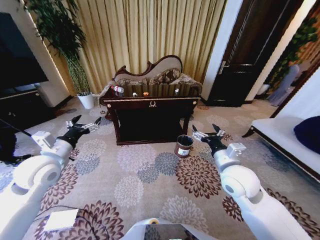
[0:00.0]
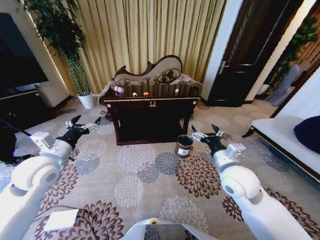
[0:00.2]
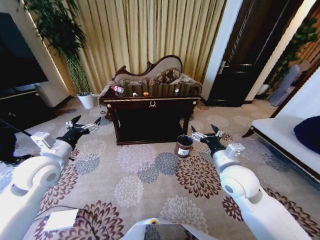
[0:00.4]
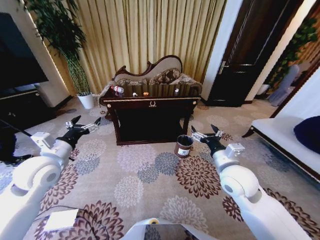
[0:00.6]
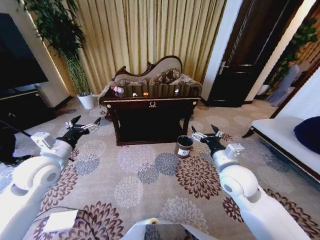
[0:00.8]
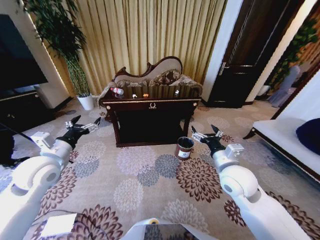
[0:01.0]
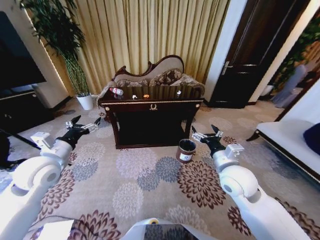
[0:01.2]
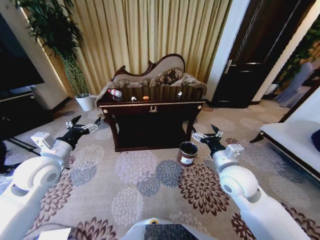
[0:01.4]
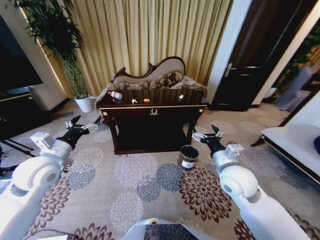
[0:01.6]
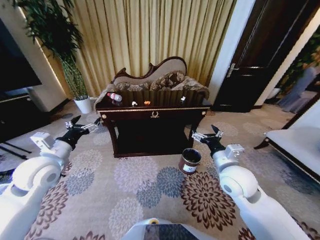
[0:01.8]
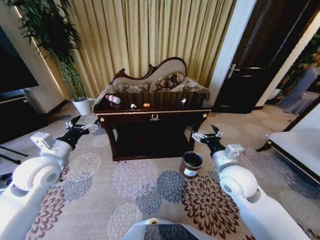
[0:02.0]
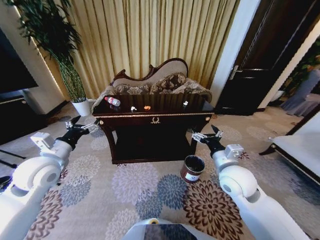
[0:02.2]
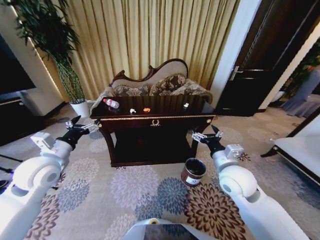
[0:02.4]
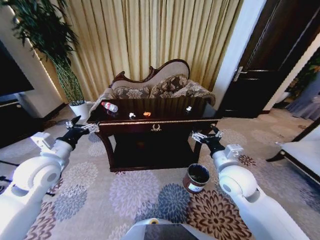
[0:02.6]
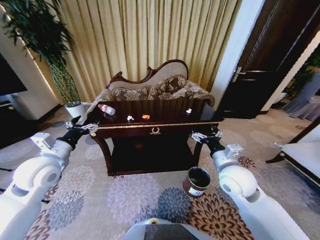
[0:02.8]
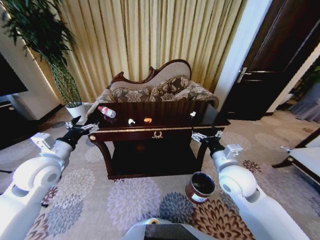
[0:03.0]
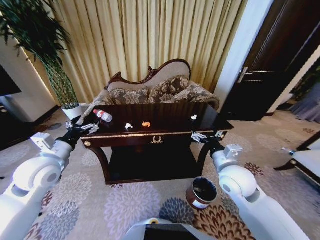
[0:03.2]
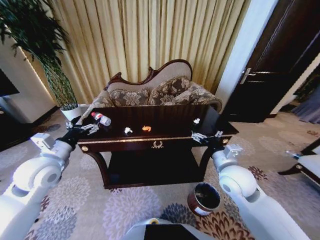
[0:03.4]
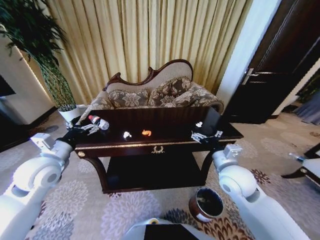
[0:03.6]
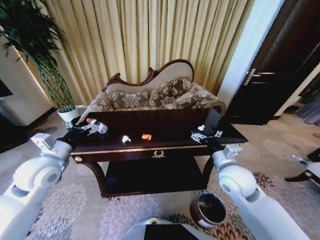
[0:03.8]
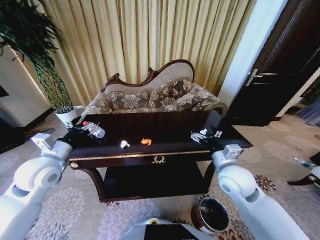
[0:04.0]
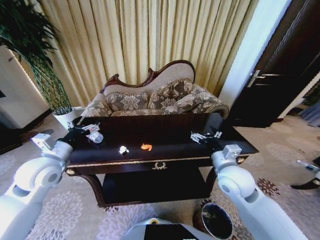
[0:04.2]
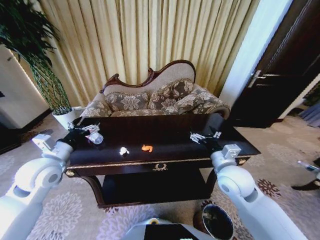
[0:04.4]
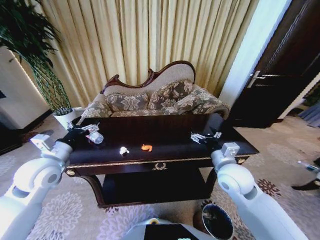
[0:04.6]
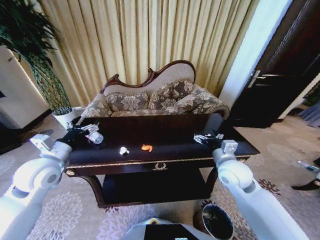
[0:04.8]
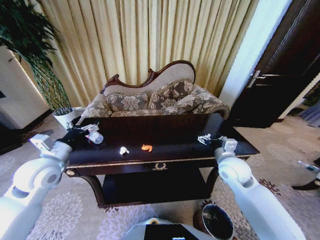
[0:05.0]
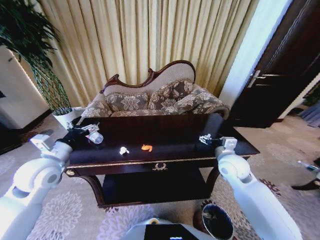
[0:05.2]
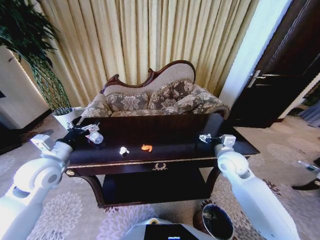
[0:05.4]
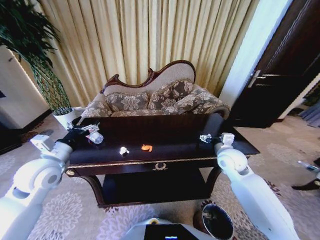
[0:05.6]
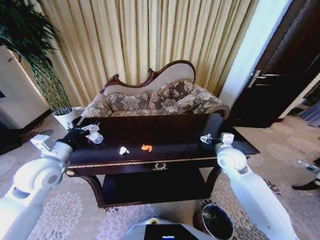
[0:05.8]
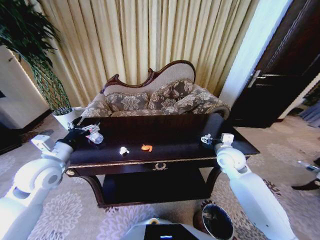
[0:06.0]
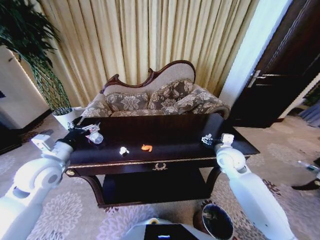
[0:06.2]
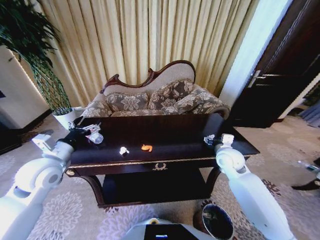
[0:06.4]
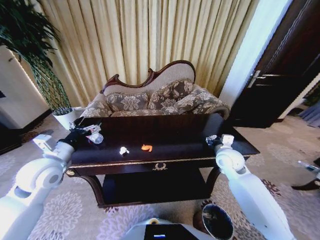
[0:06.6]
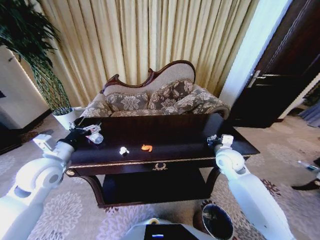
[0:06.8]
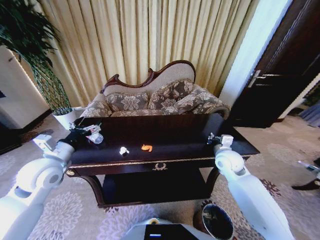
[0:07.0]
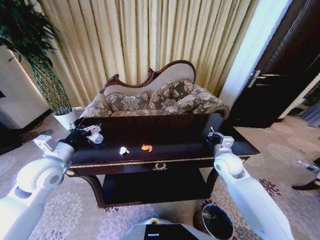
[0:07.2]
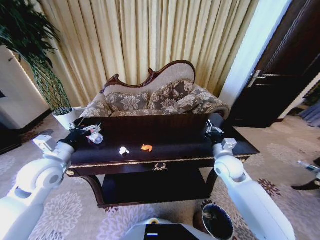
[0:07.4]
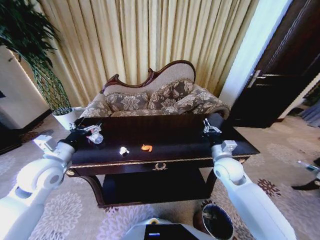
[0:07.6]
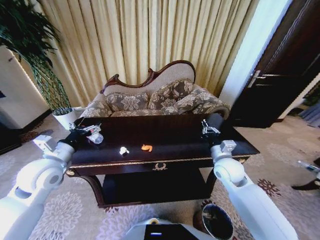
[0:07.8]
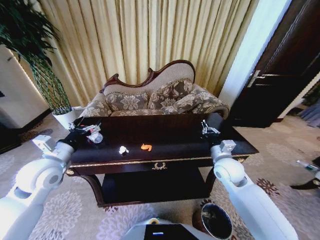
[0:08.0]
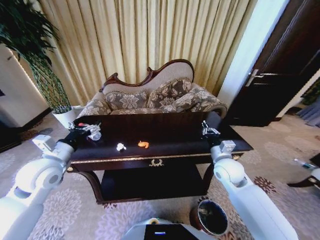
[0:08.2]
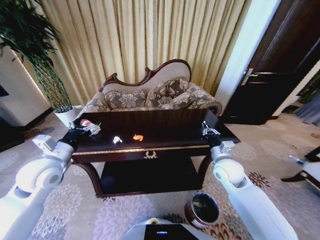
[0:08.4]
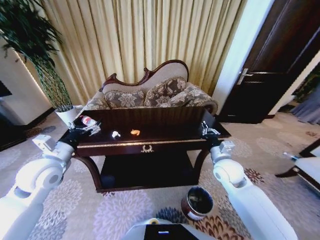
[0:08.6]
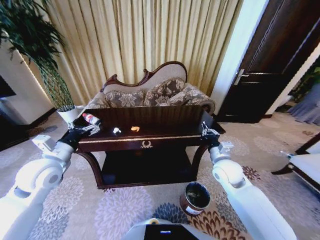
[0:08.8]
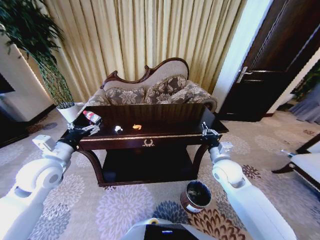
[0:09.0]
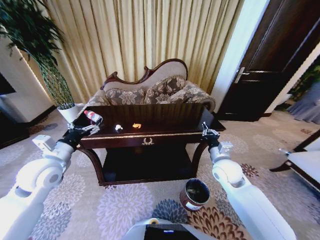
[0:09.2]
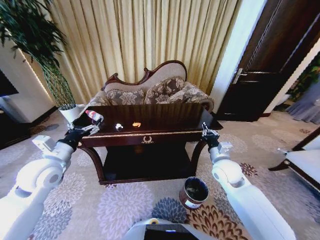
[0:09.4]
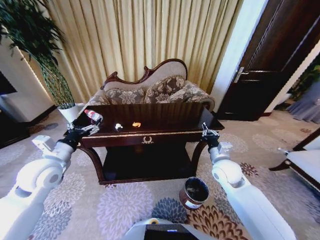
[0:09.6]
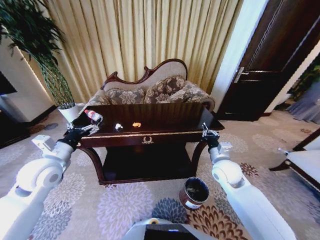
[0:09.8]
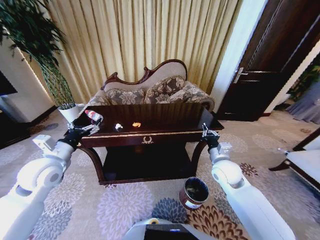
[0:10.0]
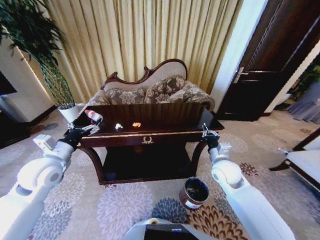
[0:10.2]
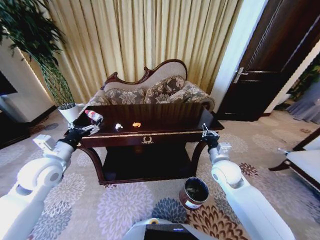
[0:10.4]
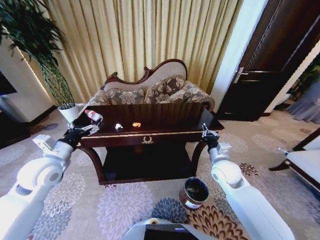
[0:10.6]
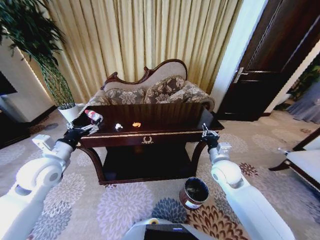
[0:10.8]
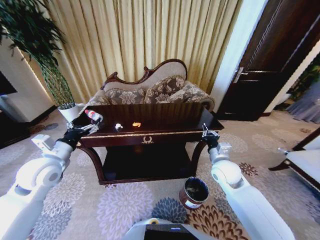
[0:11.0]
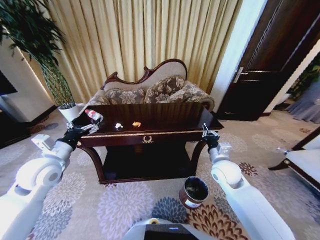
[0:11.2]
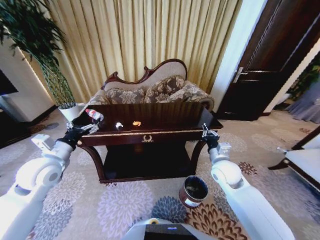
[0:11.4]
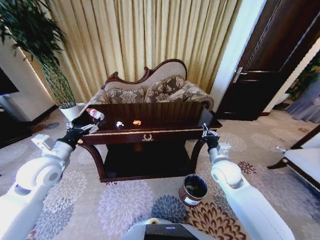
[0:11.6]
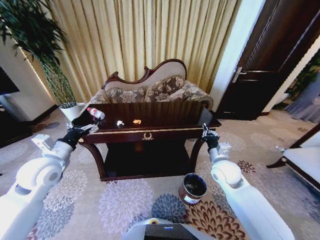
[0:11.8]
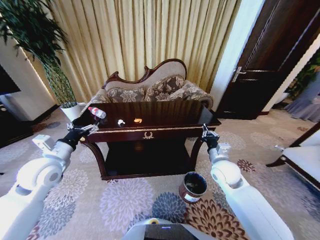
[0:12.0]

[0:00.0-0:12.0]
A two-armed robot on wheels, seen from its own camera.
Task of the whole recording: Move to the front of the table and place the trash on the table into the trash bin.
0:04.4 to 0:06.0: The right gripper goes roughly 10 cm forward and to the right.
0:06.0 to 0:07.6: The right gripper closes up.
0:09.0 to 0:10.4: The two grippers keep their place.

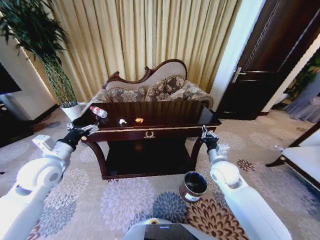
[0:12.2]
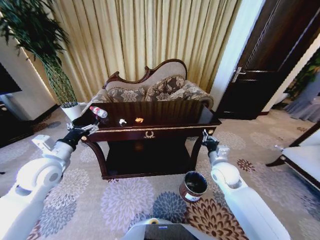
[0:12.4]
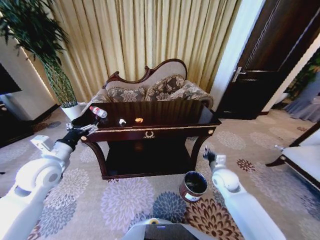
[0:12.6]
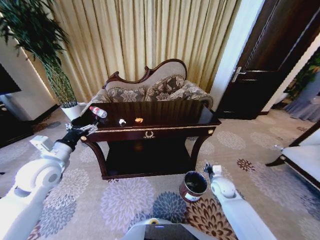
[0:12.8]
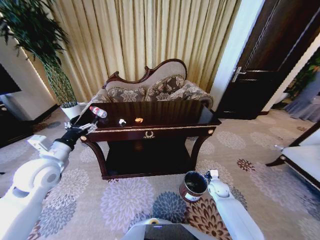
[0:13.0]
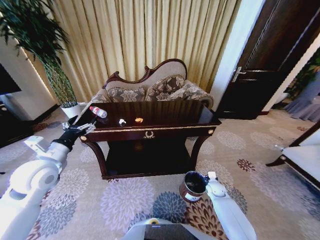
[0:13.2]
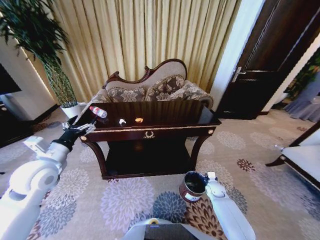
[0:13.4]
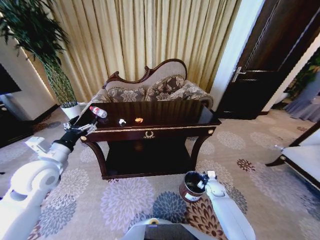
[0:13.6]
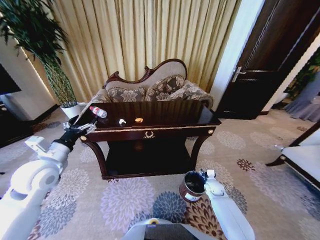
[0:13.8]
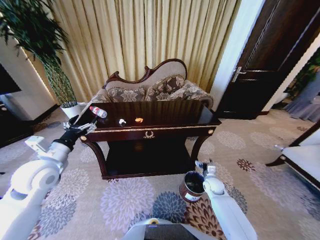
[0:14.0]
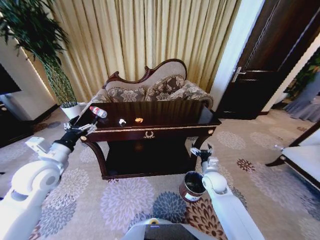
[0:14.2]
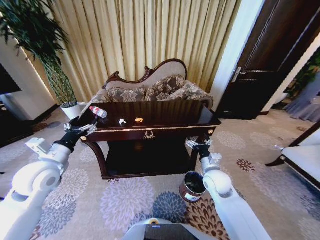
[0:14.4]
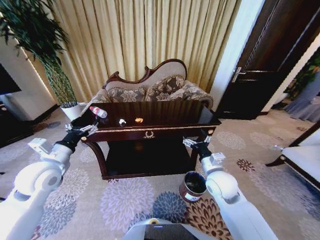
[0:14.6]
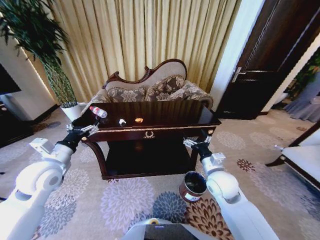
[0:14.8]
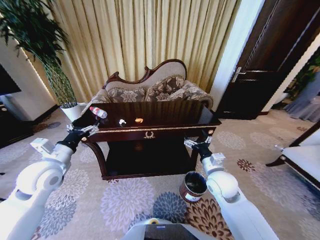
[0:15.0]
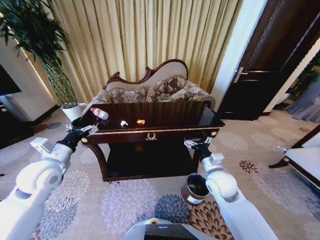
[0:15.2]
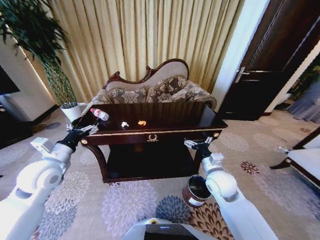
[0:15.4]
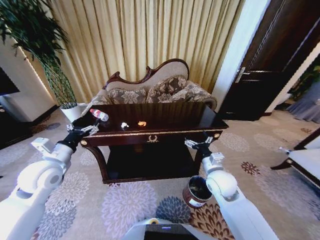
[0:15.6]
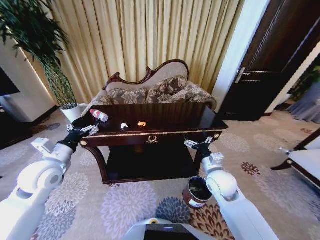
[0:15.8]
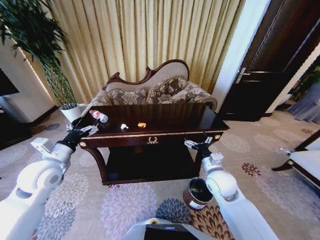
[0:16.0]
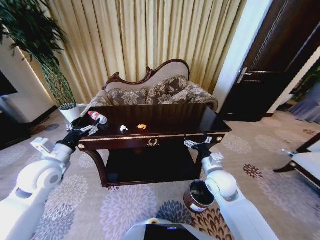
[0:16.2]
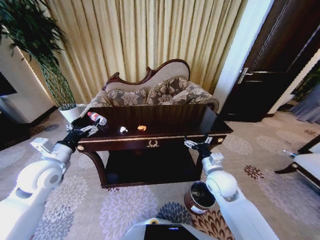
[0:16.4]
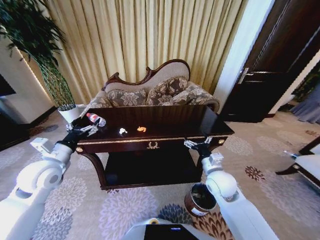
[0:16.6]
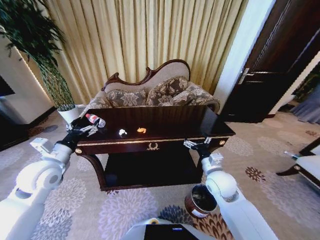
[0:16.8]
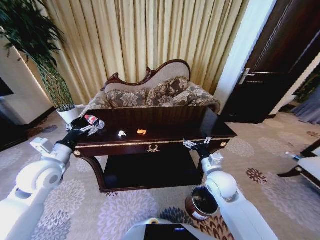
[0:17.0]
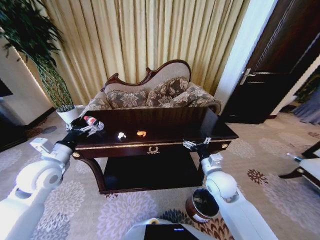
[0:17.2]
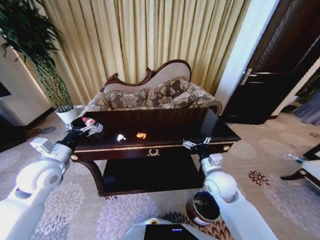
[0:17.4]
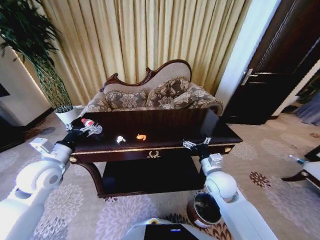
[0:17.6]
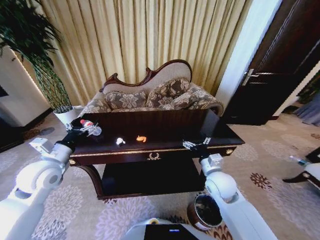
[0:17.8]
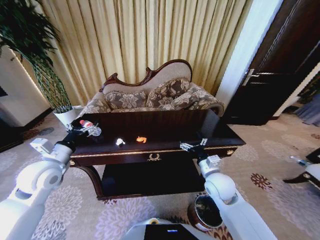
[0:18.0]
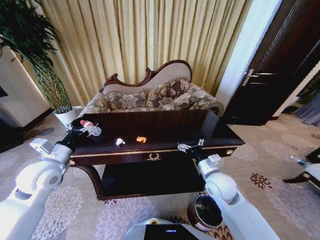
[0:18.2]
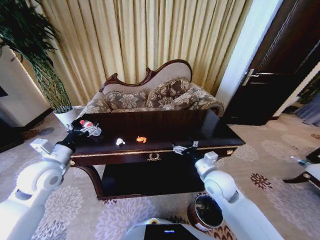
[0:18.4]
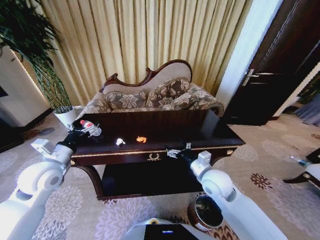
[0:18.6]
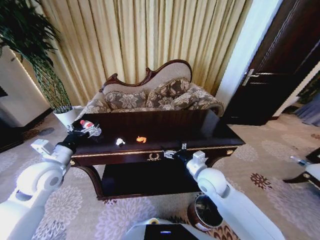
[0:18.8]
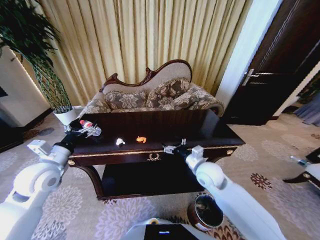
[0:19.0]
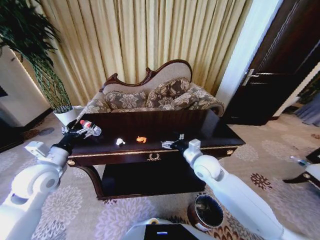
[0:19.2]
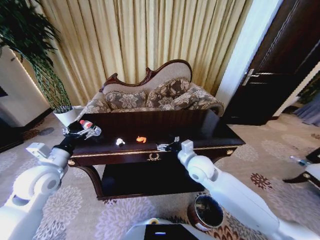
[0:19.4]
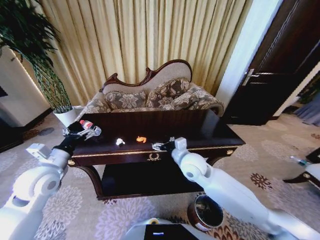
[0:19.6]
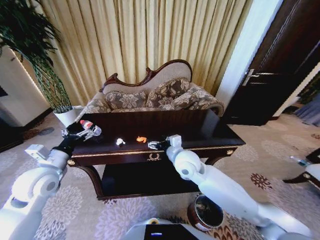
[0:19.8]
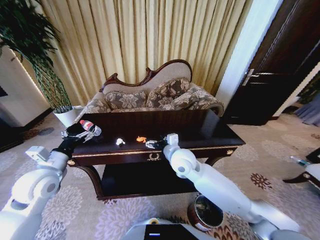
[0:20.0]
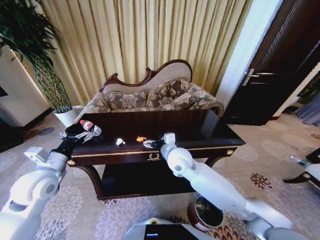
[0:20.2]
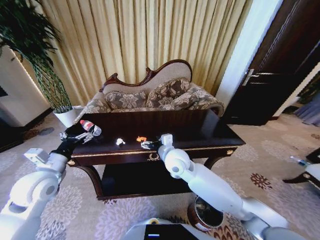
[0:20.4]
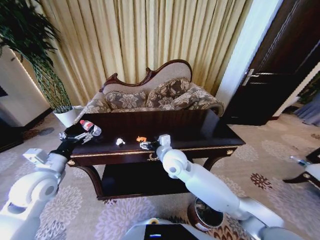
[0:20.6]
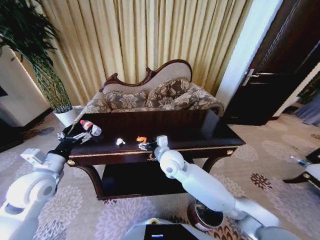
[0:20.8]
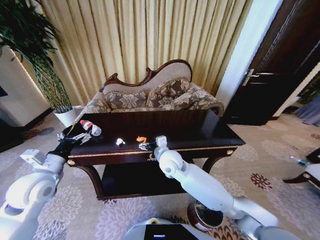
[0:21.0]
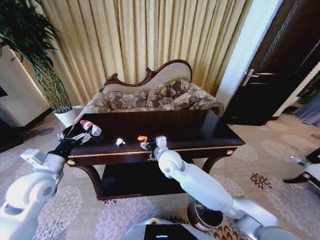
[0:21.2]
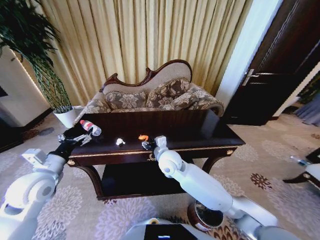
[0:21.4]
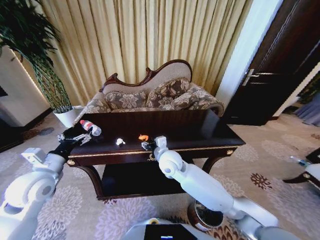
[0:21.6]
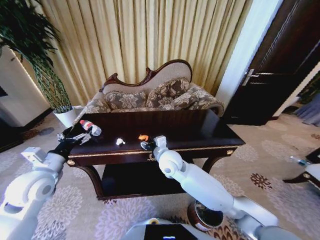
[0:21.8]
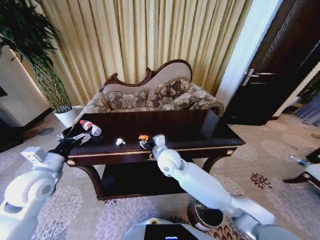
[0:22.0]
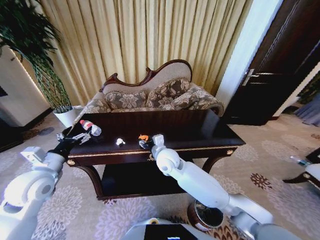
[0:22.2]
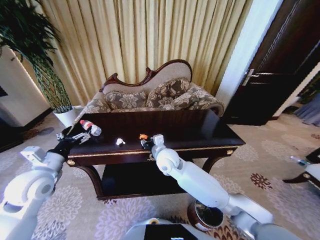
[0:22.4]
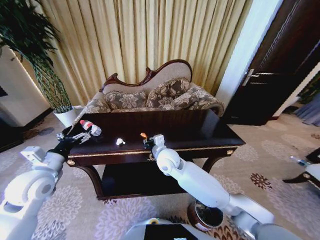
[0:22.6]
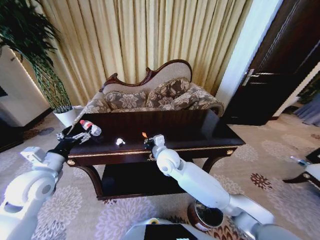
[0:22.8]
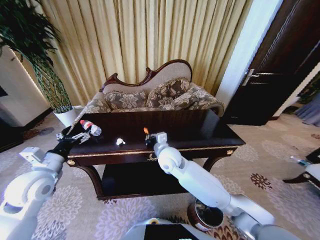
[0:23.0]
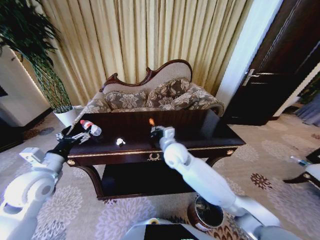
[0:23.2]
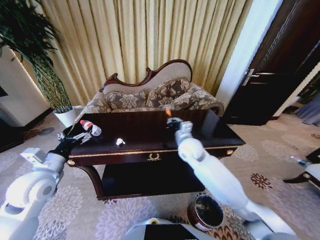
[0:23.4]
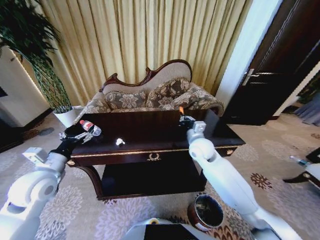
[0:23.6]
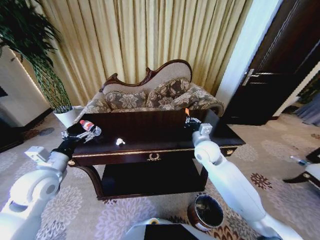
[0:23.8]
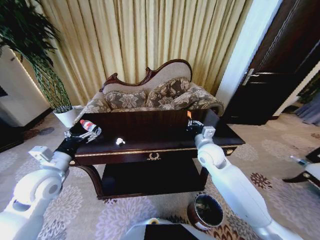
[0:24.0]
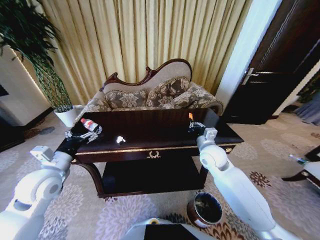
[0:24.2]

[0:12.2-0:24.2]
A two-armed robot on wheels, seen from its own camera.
Task of the whole recording: Move to the front of the table and place the trash on the table into the trash bin.
0:12.2 to 0:13.8: The right gripper moves downward, about 25 cm, and opens its fingers.
0:13.8 to 0:15.2: The right gripper moves upward and to the left, about 25 cm.
0:18.2 to 0:19.8: The right gripper travels to the left, forward and upward by some 15 cm.
0:19.8 to 0:21.2: The right gripper shifts about 5 cm to the left.
0:21.2 to 0:22.6: The right gripper closes up.
0:22.6 to 0:24.2: The right gripper moves to the right, about 20 cm.
